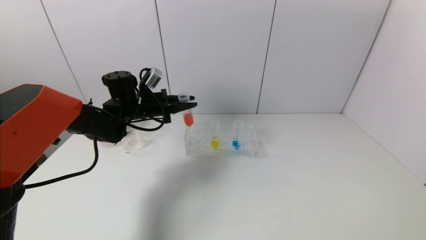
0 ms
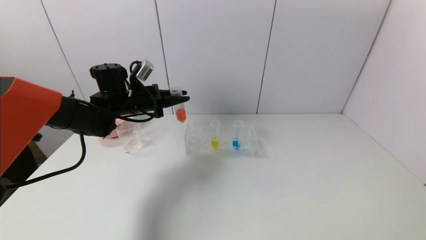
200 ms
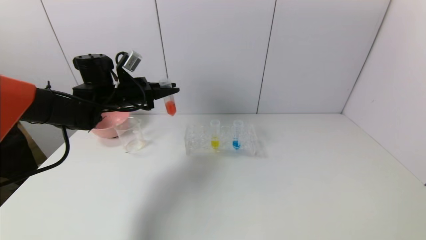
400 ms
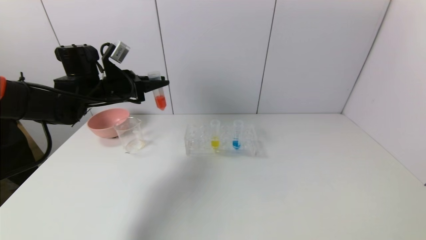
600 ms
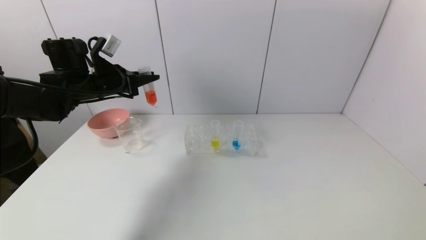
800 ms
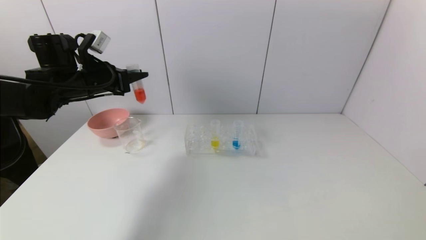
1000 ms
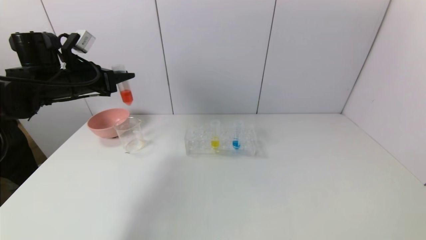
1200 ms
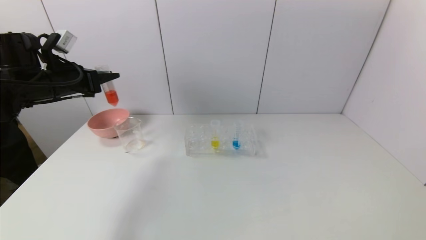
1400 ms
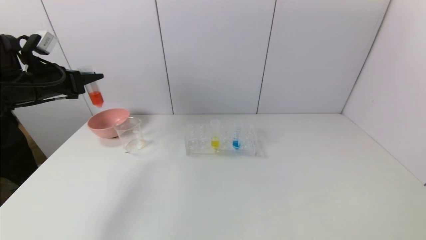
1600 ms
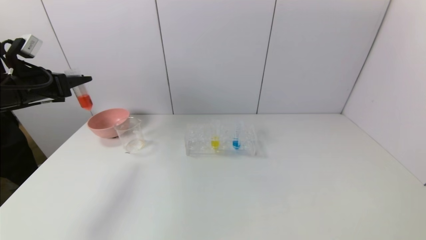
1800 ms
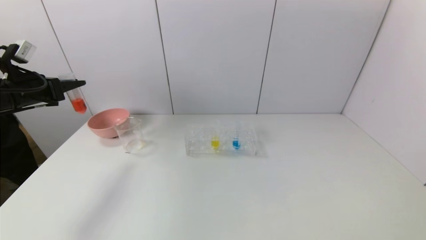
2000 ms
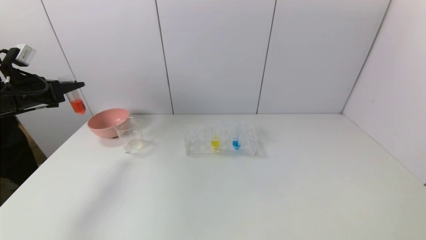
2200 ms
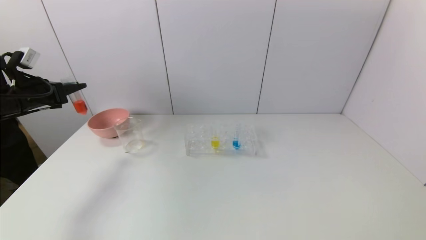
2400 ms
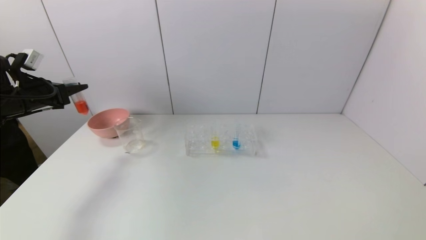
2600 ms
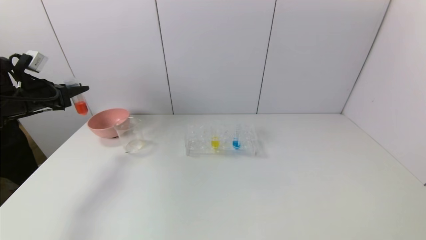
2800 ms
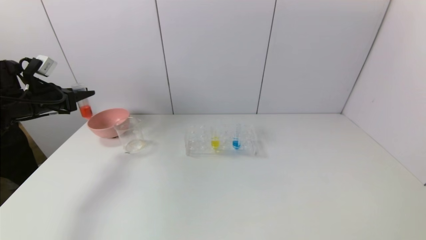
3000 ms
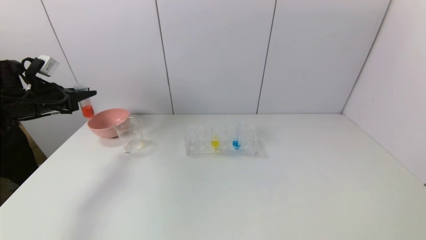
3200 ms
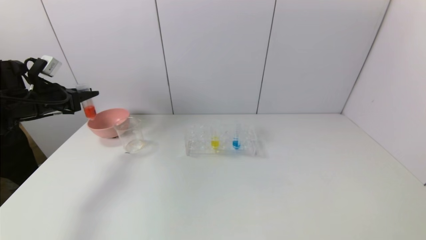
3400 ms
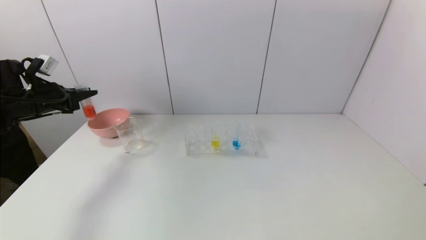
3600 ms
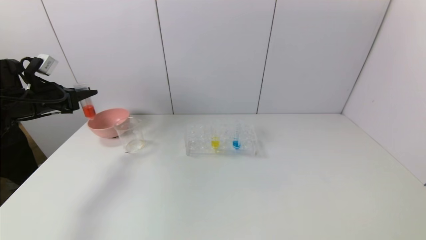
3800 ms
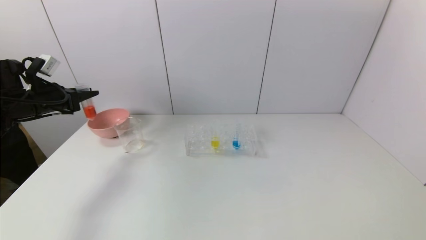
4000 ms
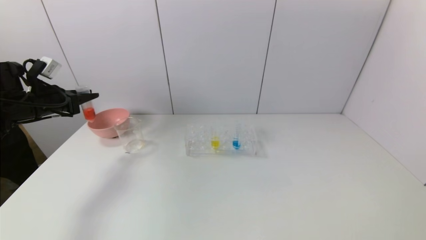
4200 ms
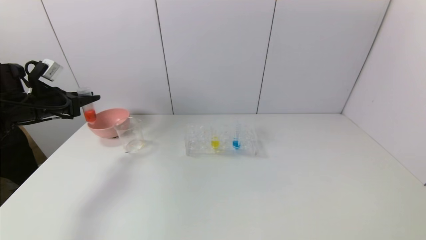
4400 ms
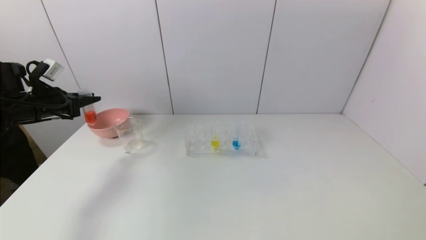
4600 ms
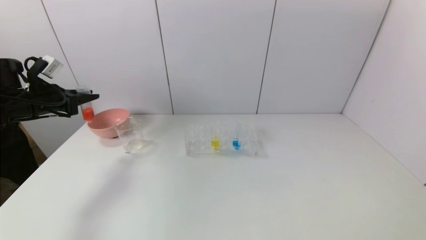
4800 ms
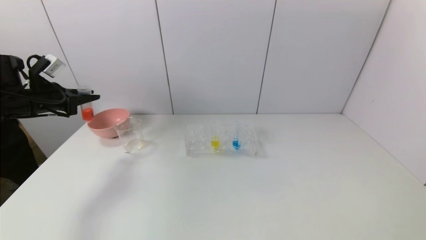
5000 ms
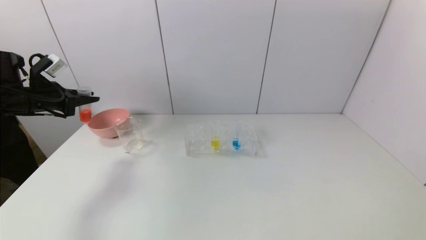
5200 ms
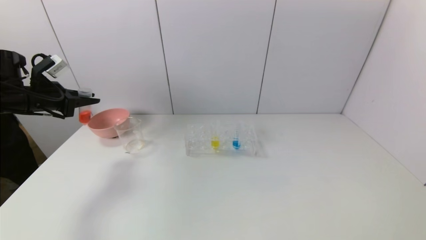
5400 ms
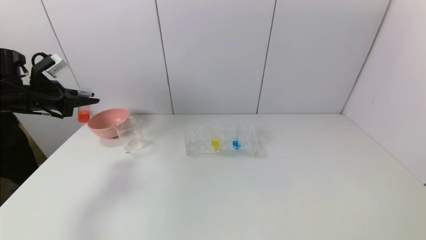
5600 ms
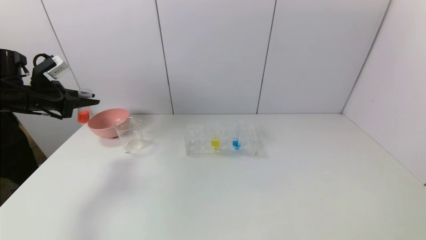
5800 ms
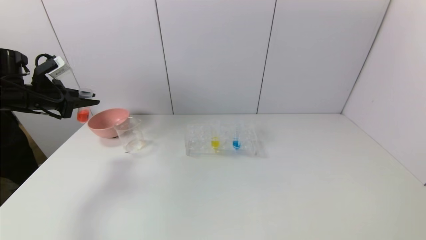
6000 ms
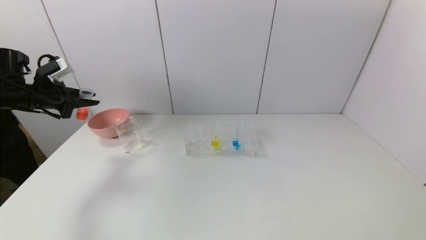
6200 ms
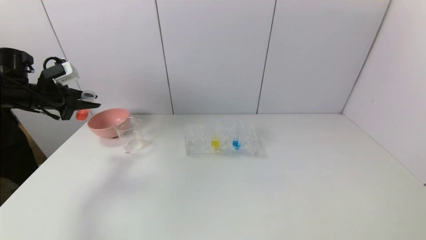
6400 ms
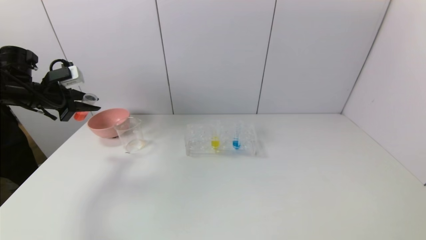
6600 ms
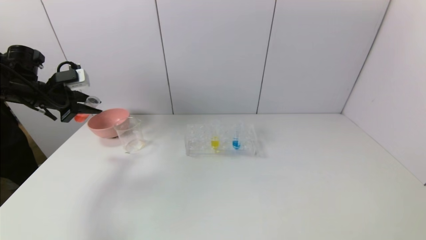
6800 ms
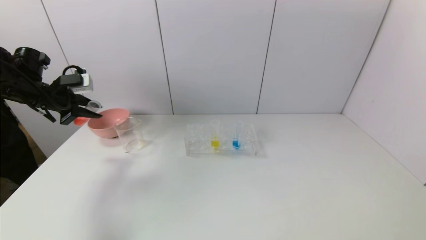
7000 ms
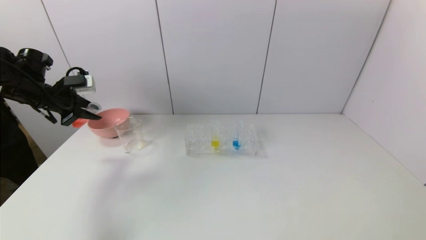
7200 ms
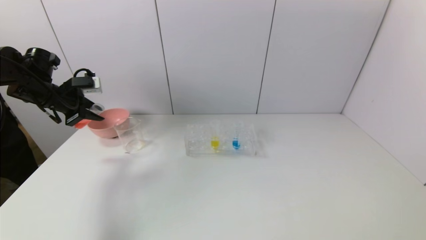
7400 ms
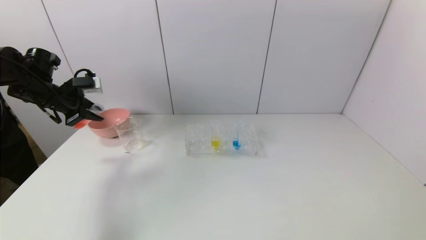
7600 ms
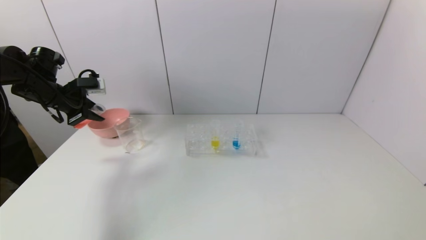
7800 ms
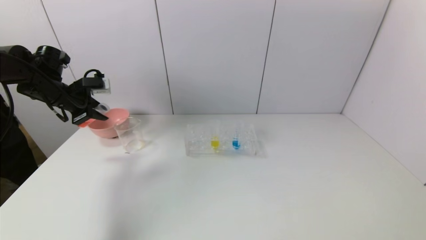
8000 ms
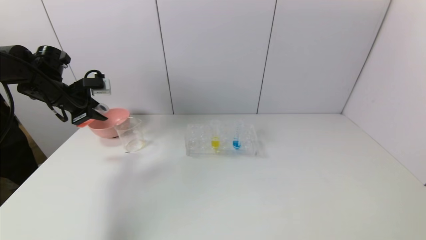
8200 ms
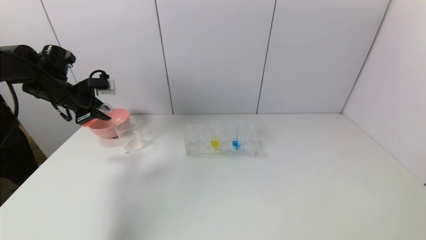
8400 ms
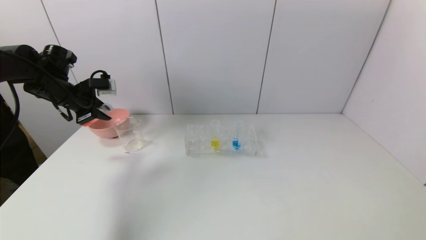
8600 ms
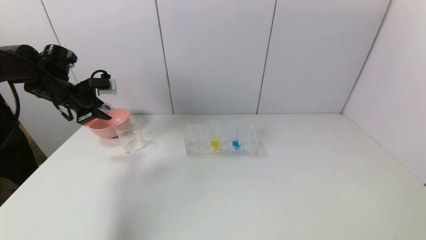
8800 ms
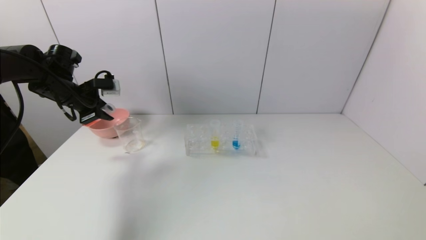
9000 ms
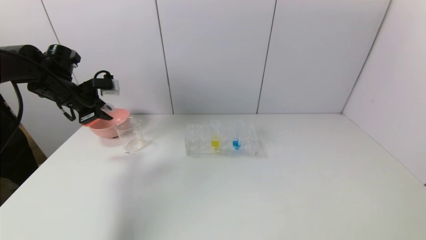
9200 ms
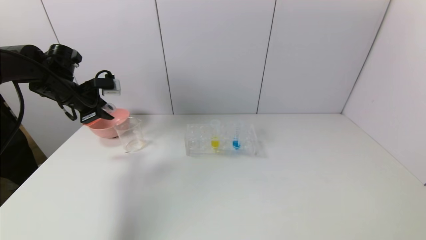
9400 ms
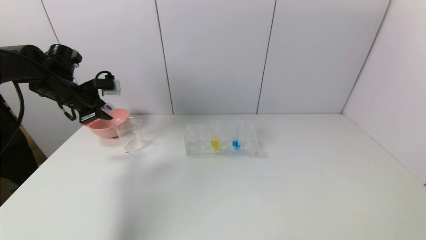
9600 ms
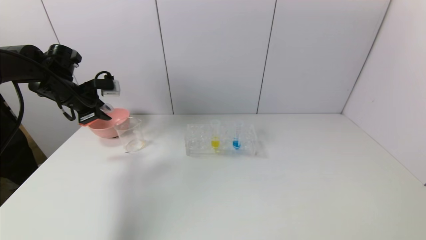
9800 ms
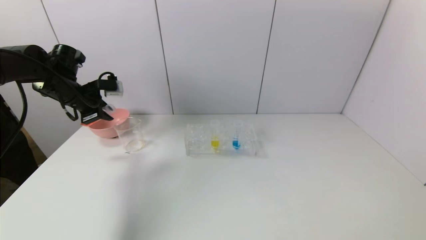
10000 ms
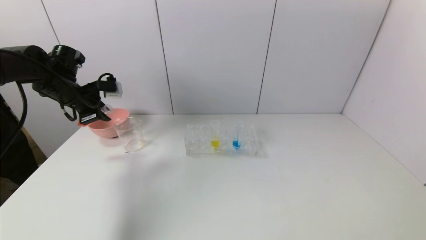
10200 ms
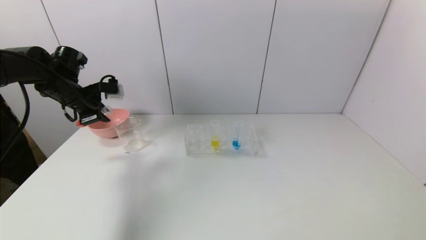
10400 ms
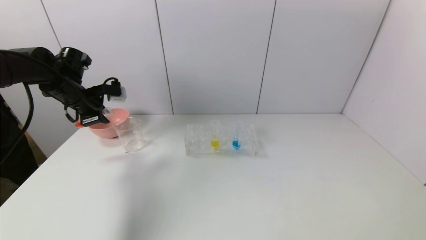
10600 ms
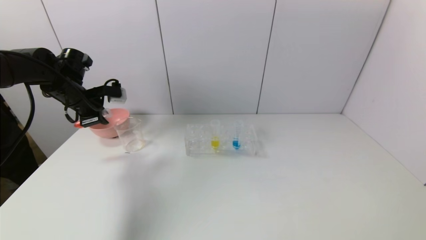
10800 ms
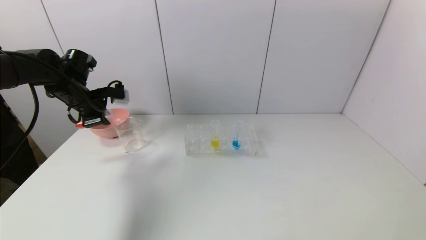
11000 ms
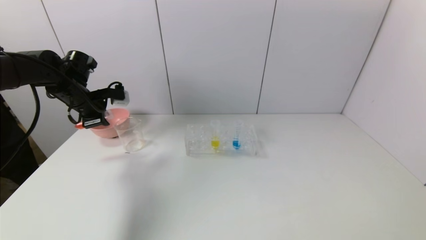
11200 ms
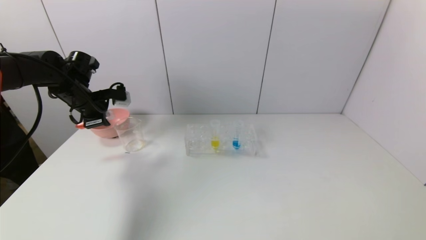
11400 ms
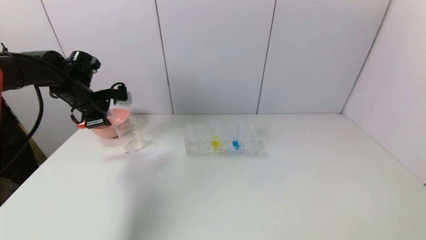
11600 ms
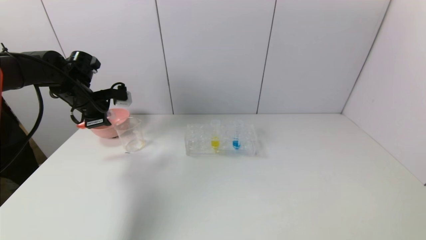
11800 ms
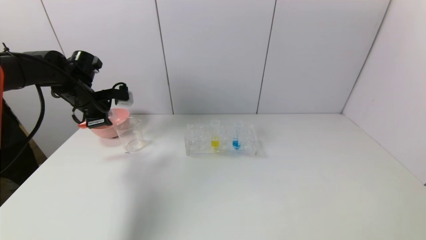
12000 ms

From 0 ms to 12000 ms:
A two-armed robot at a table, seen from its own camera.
Task of the whole recording: pick up the test tube with yellow pigment and the test tube with red pigment by grippers and pour them into the beaker.
From 0 ms to 1600 ms: The left gripper is displaced to the left, backward and upward by some 20 cm.
From 1600 ms to 3000 ms: The left gripper heads to the left, covering about 5 cm.
From 3000 ms to 4400 ms: There are only small adjustments of the grippers.
From 7600 ms to 10400 ms: There are only small adjustments of the grippers.
From 10400 ms to 12000 ms: The grippers stay close to where they were, moving slightly.

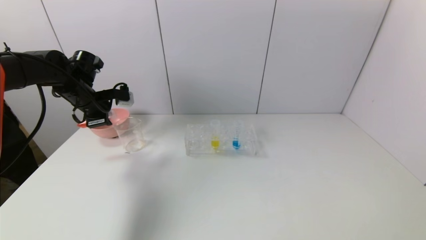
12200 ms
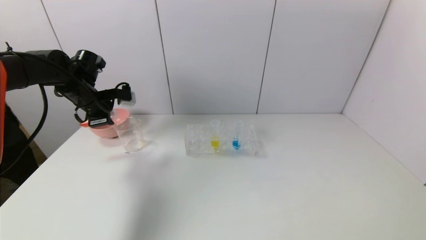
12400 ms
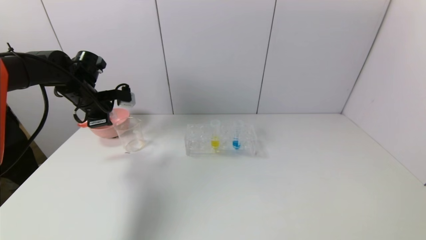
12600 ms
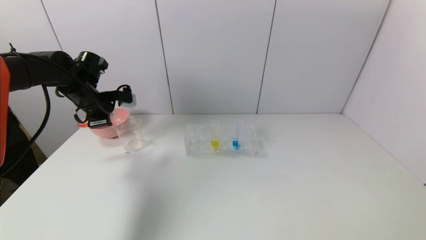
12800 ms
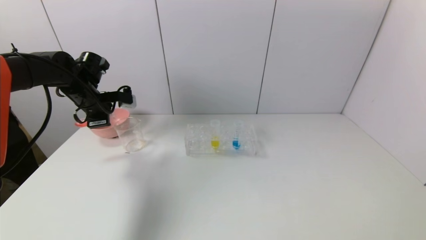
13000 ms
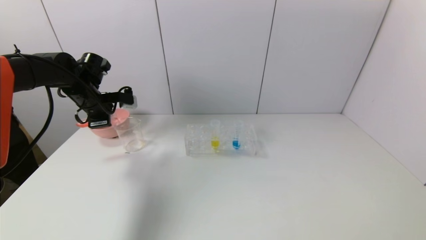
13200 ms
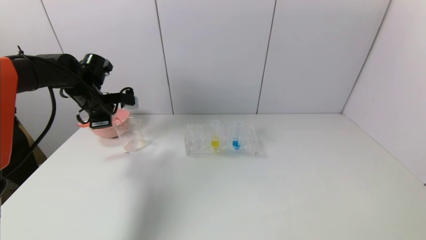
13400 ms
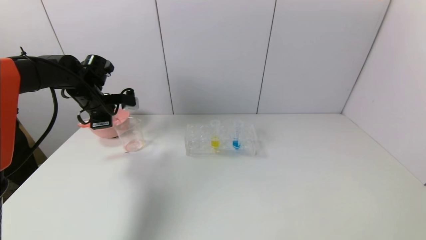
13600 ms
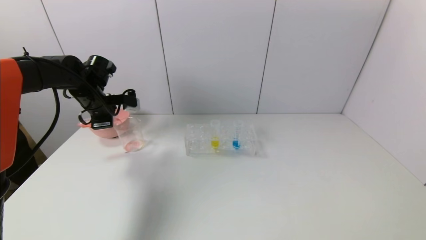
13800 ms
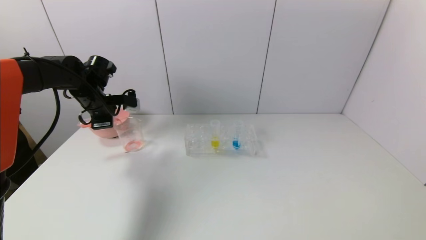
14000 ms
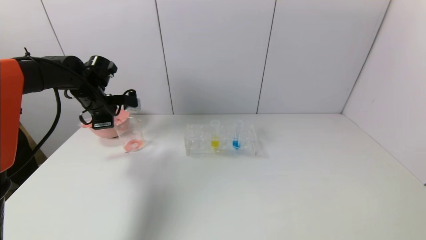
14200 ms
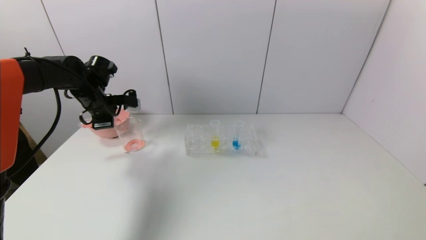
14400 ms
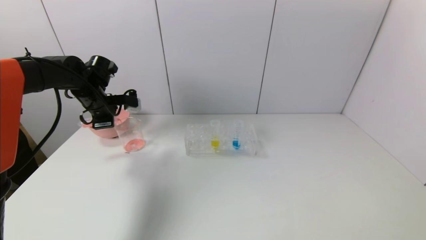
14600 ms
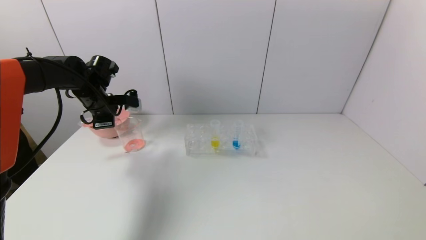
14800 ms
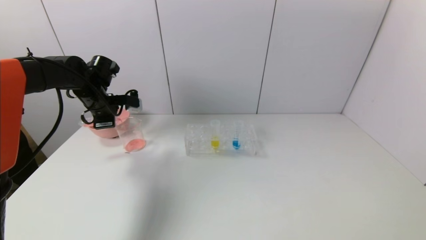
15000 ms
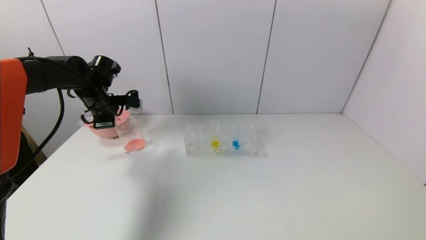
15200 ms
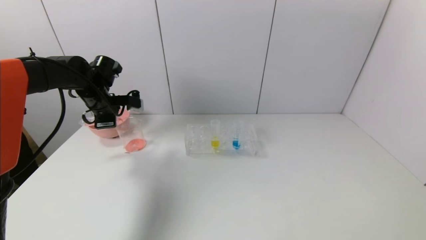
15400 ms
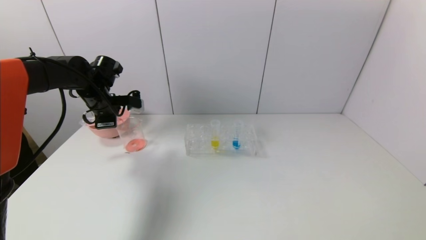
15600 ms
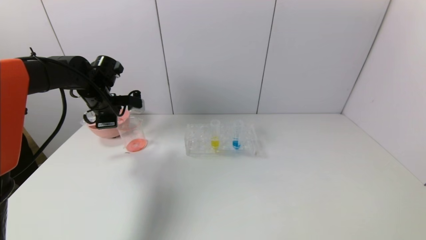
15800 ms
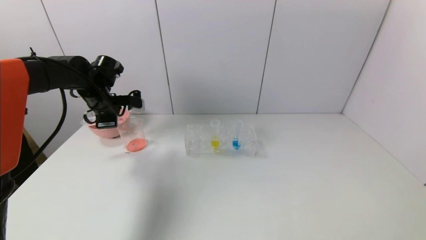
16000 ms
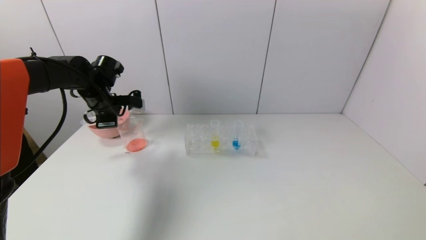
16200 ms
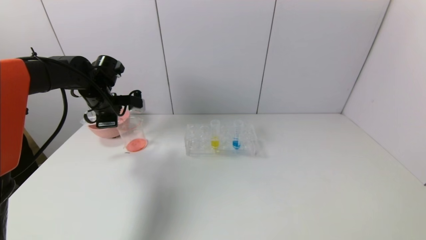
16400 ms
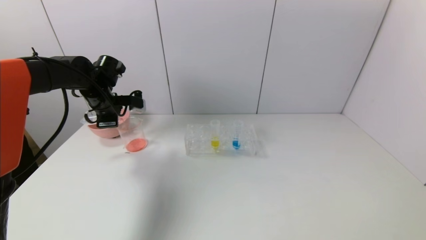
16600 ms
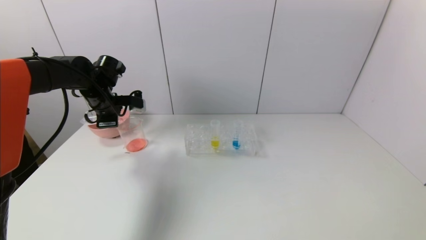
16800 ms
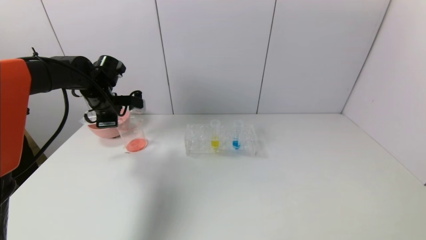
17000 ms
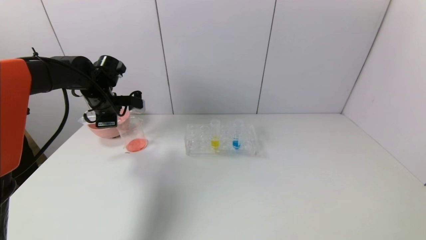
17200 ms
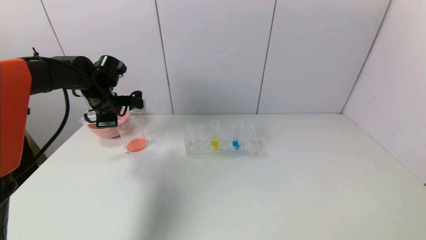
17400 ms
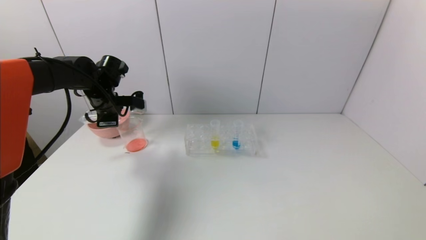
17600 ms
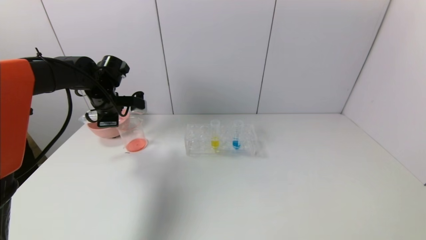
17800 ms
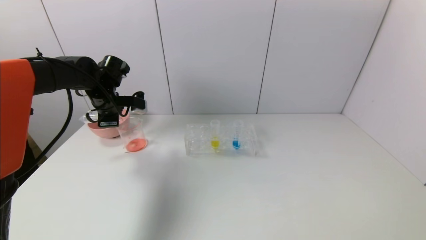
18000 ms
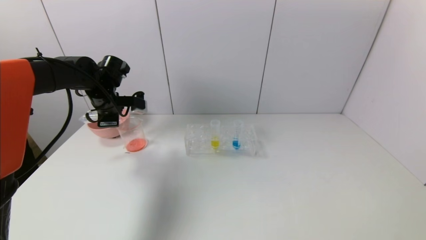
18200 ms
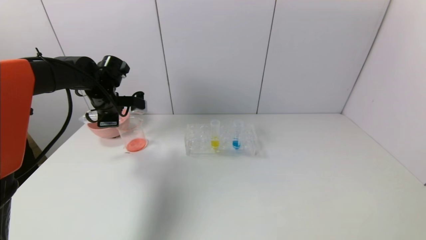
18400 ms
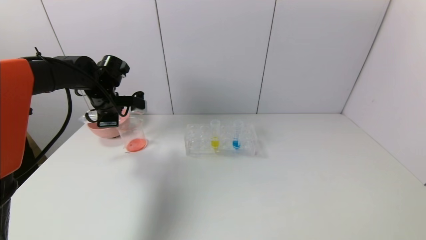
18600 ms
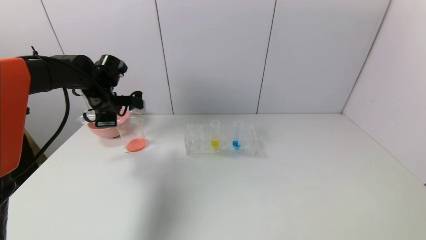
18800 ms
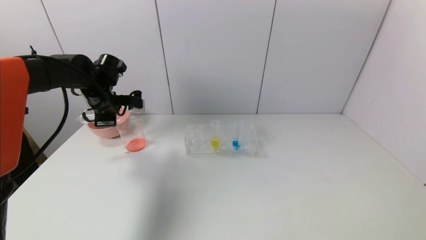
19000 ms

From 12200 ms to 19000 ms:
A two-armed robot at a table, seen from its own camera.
Task of the whole recording: pick up the test tube with yellow pigment and the test tube with red pigment by grippers and pour them into the beaker.
Step, from 12200 ms to 18800 ms: Pour the red reagent into the graduated cylinder with the left gripper.
From 12200 ms to 13600 ms: The grippers move only a little.
From 13600 ms to 15000 ms: The two grippers keep their place.
From 15000 ms to 16200 ms: The two grippers keep their place.
From 16200 ms to 17600 ms: The two grippers keep their place.
From 17600 ms to 19000 ms: Both grippers stay put.
